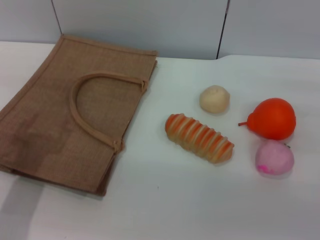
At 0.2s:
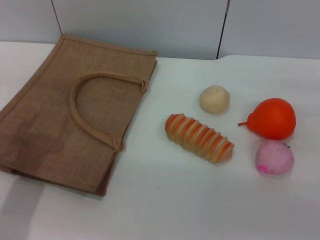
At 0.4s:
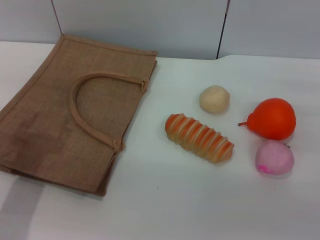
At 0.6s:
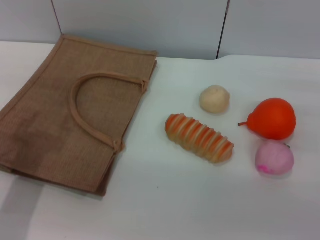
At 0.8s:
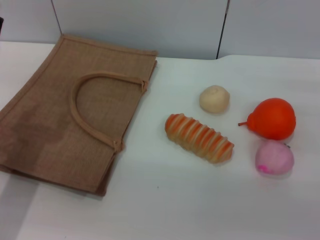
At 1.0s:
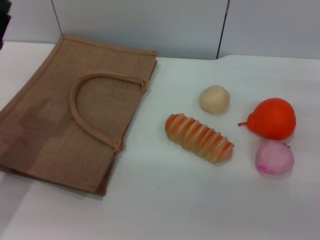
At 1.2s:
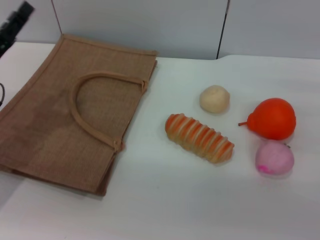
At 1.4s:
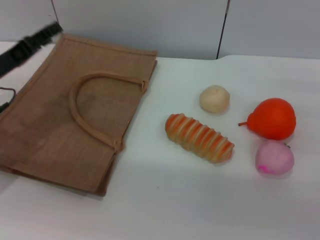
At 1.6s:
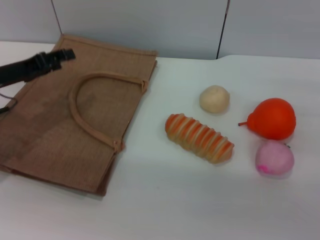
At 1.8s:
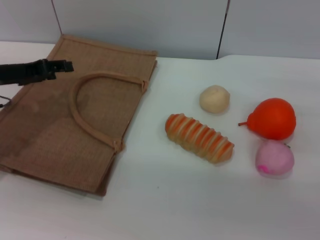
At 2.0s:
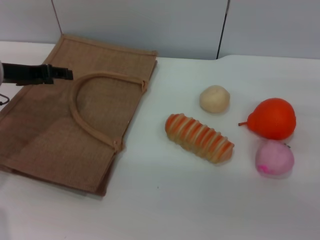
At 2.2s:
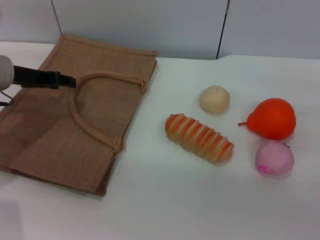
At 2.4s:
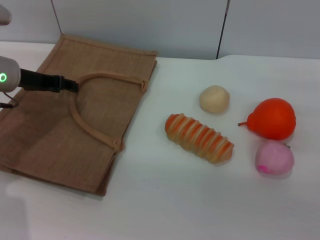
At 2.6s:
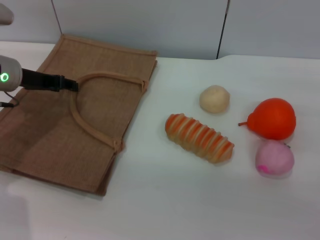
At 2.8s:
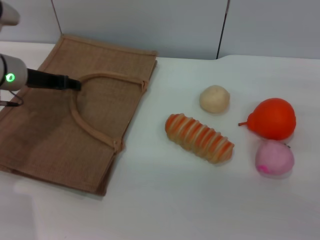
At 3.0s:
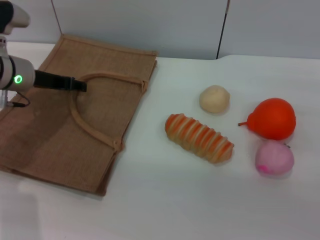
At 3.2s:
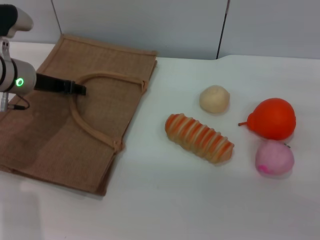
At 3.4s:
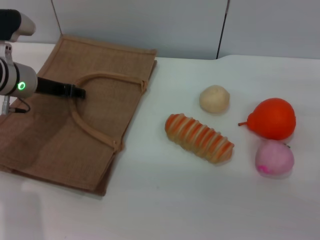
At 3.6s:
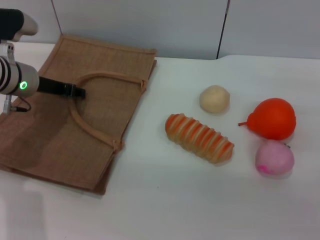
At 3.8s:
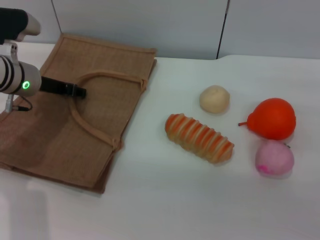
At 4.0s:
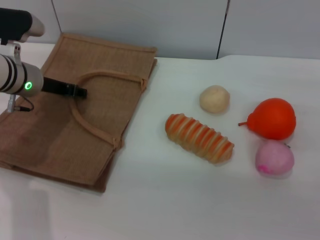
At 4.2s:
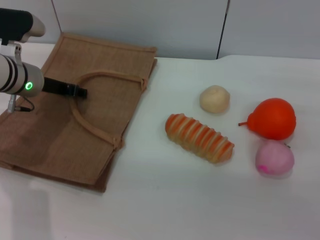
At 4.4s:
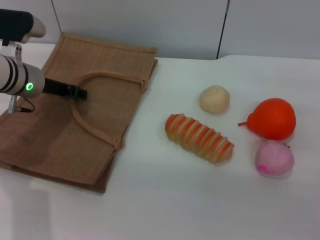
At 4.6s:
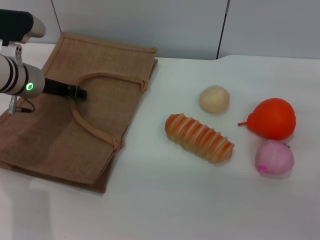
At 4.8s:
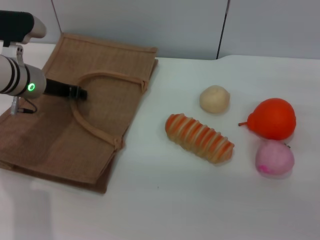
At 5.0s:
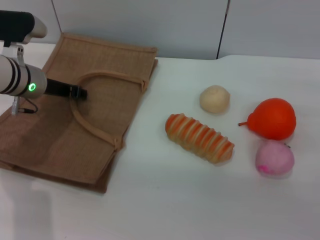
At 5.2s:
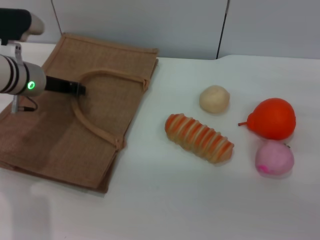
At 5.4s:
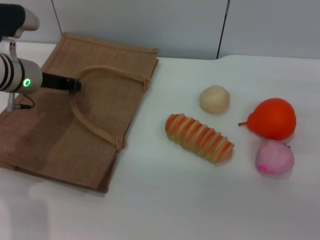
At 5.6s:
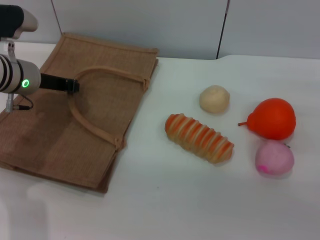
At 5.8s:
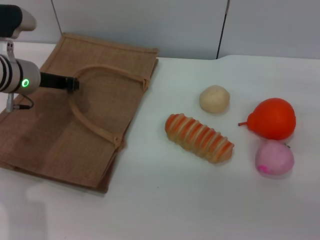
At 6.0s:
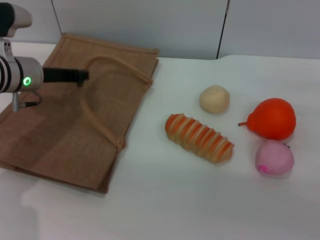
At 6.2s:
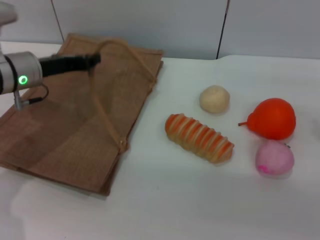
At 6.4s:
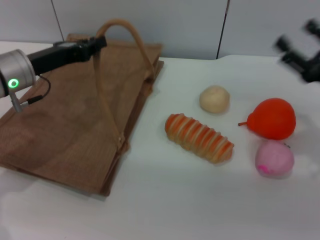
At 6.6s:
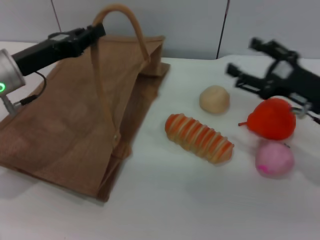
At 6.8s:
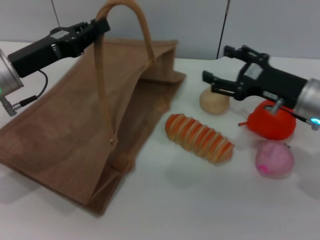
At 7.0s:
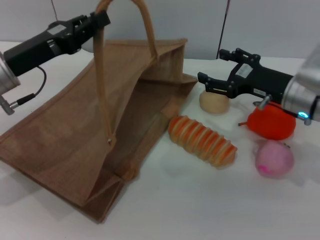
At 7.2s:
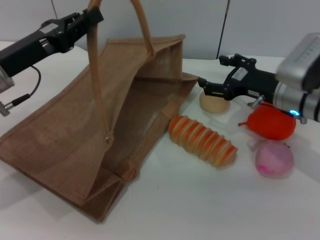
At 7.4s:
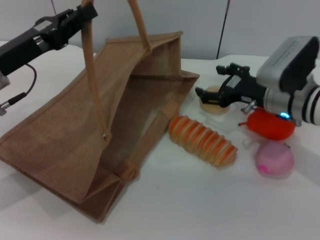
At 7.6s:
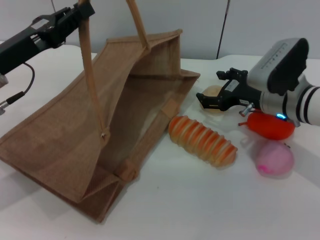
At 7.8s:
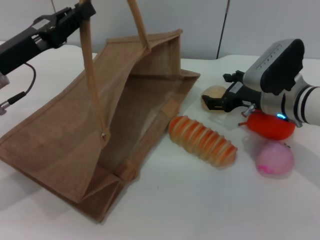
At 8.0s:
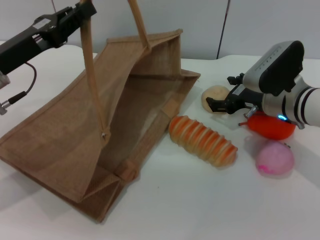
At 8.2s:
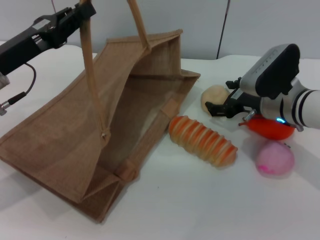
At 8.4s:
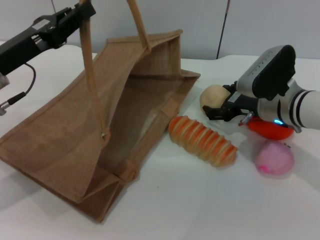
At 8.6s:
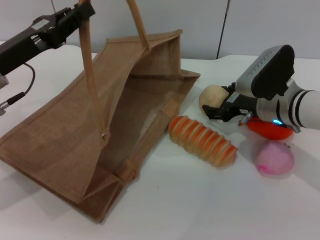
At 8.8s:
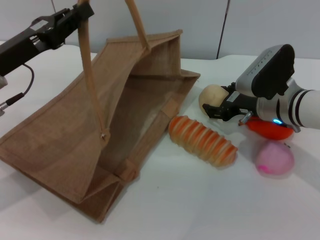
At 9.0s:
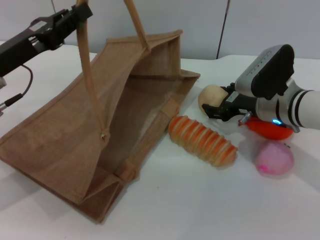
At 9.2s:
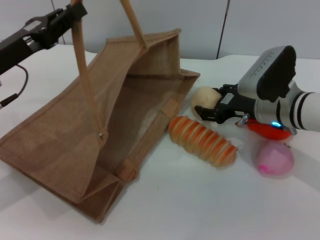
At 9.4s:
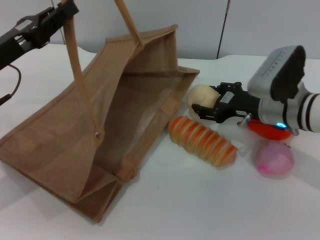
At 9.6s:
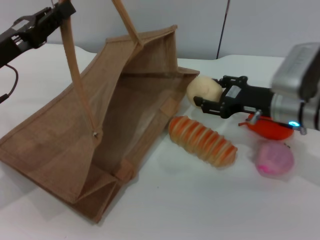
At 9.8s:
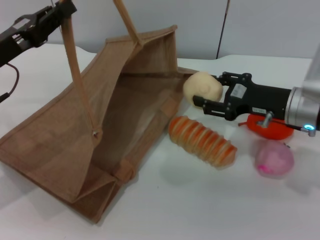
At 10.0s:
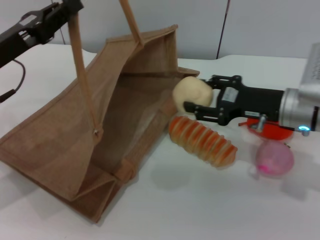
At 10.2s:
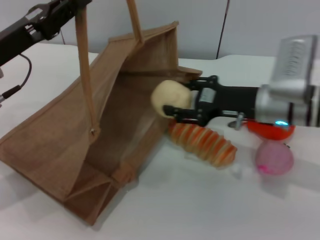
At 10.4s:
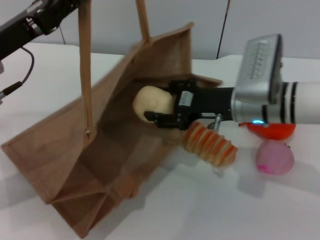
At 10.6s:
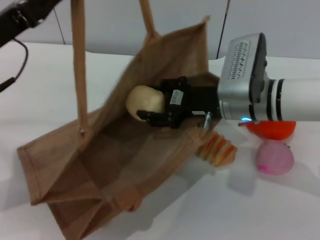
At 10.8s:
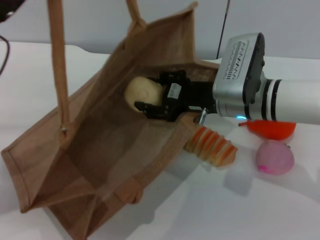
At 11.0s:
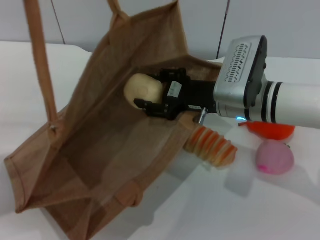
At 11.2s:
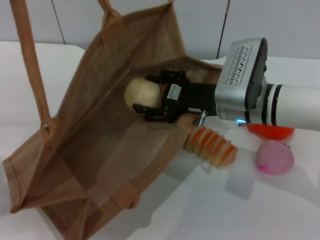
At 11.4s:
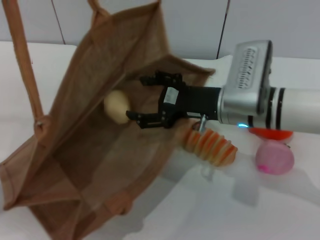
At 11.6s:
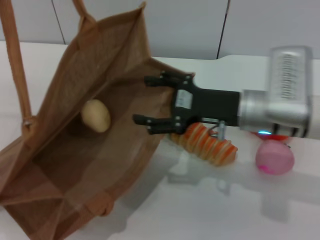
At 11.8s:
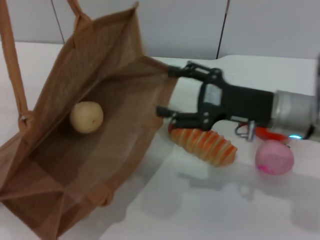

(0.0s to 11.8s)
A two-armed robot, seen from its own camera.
Task of the whole recording: pick up the egg yolk pastry from the table and place it in the brown handbag.
Step, 0.0s - 6.0s: Lift the woven bag with the left gripper to open it.
Step, 6.2s - 9.4s: Pick up the egg yolk pastry with the right gripper.
Step, 9.6s - 11.6s: Place the egg yolk pastry into the woven bag with the right gripper.
0.0s - 1.4s: The left gripper goes roughly 10 cm forward.
1.4s - 3.0s: The left gripper heads forward, covering some 5 cm.
3.0s - 4.4s: The grippers move only a little.
4.4s - 6.0s: The left gripper closes up.
6.0s - 7.4s: The left gripper shifts some 10 cm backward. Meanwhile the right gripper is displaced to the left and forward by approximately 15 cm.
7.4s - 8.8s: The right gripper closes its fingers.
8.8s - 10.4s: The right gripper ends up roughly 5 cm from where it was, and closes its fingers.
10.4s - 11.8s: The left gripper shifts roughly 5 cm to the left; the right gripper shifts by some 5 cm, and opens up.

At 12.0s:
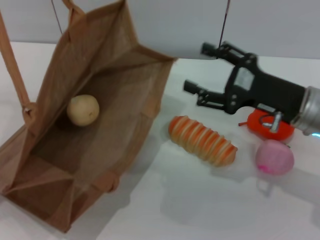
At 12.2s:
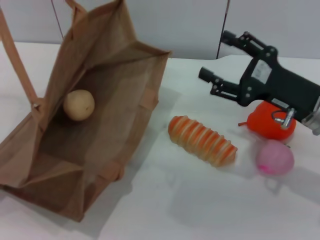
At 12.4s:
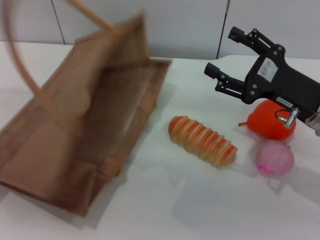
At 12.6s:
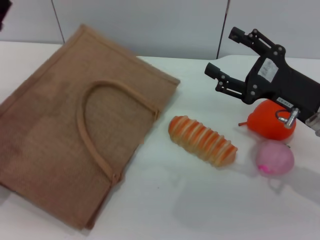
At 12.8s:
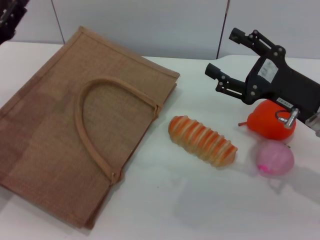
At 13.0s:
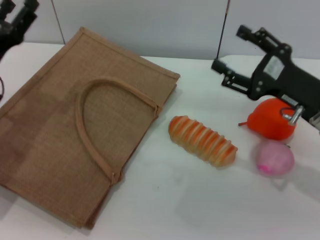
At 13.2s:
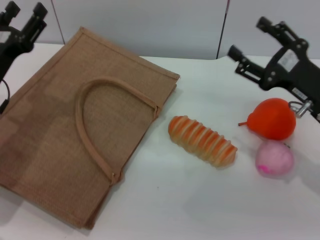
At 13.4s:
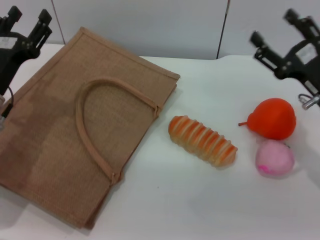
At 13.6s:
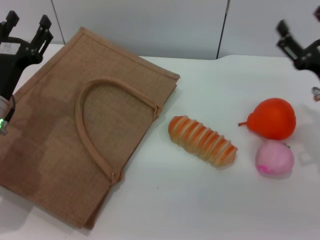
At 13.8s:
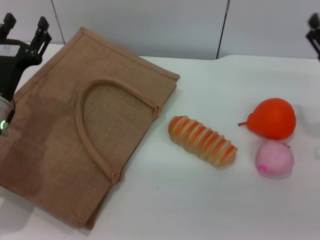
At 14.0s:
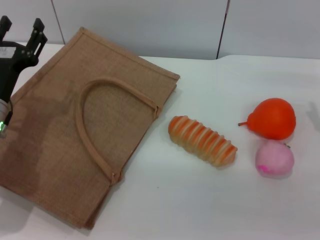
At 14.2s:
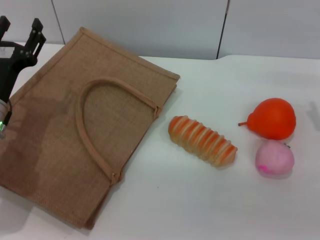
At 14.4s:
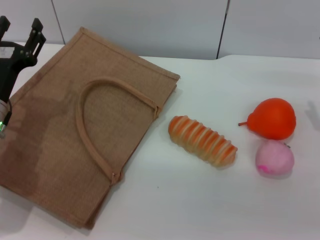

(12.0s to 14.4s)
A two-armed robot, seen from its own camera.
Task of the whole recording: pick up the egg yolk pastry from the table and place it in the brown handbag.
Step, 12.0s - 13.2s: Lower the woven bag with the left gripper to close it.
12.0s - 13.2s: The left gripper goes approximately 5 cm downward, and opens.
13.2s - 14.4s: The right gripper changes place by roughly 5 cm.
